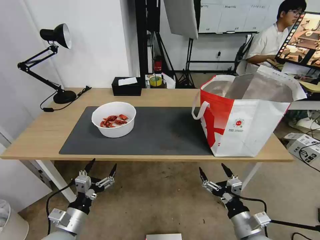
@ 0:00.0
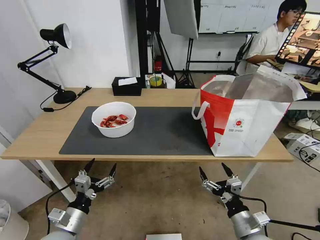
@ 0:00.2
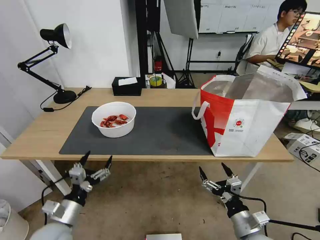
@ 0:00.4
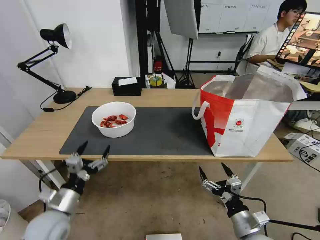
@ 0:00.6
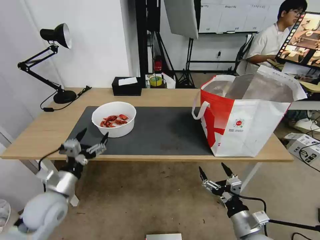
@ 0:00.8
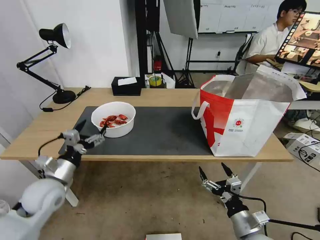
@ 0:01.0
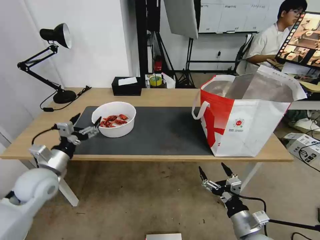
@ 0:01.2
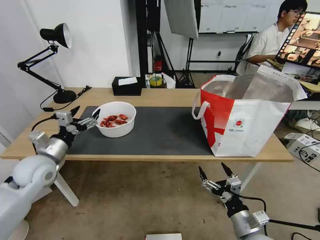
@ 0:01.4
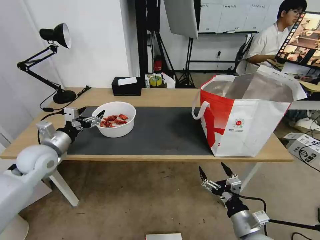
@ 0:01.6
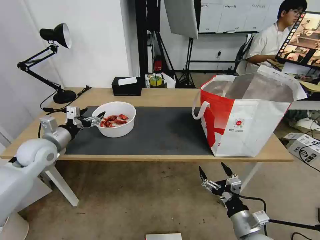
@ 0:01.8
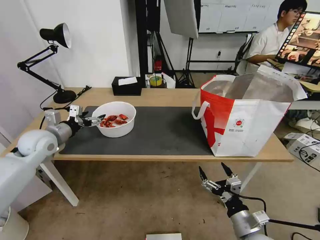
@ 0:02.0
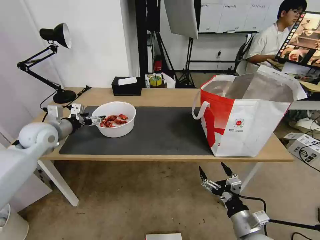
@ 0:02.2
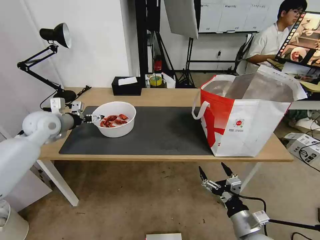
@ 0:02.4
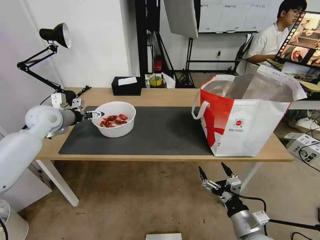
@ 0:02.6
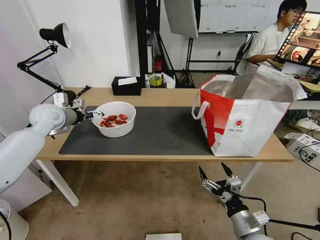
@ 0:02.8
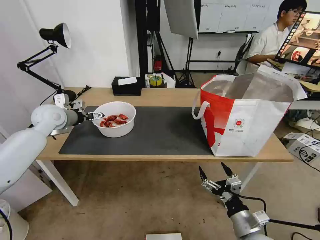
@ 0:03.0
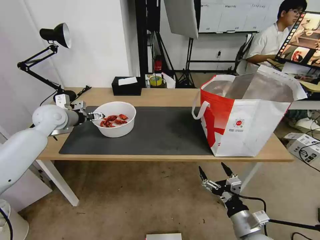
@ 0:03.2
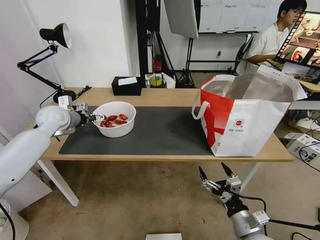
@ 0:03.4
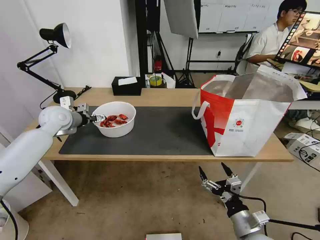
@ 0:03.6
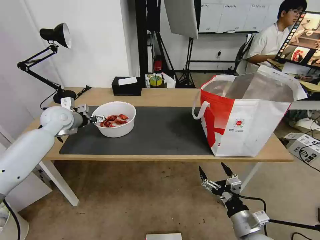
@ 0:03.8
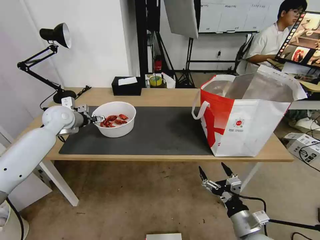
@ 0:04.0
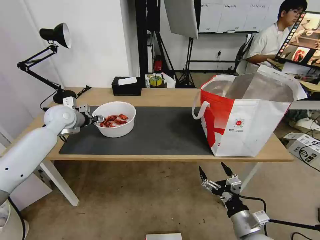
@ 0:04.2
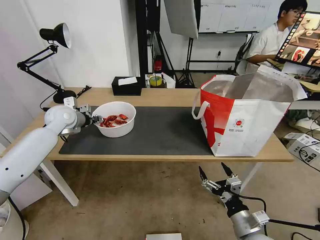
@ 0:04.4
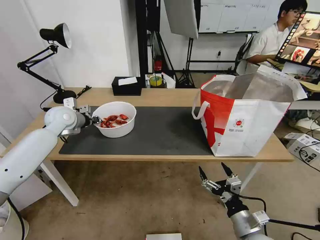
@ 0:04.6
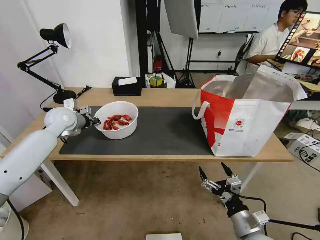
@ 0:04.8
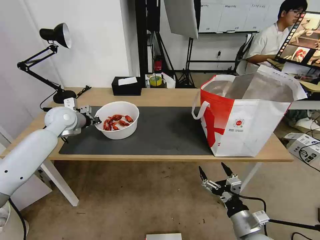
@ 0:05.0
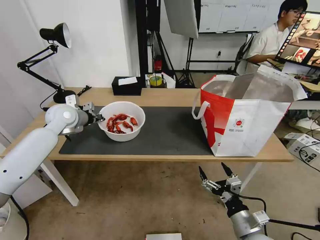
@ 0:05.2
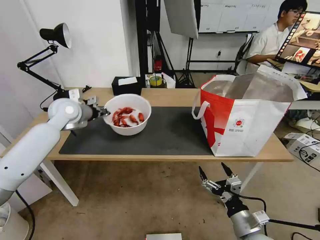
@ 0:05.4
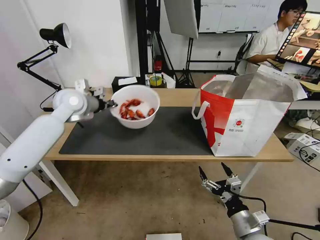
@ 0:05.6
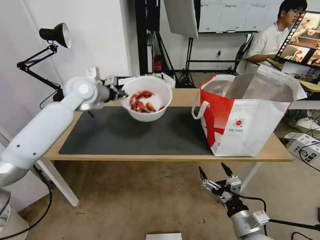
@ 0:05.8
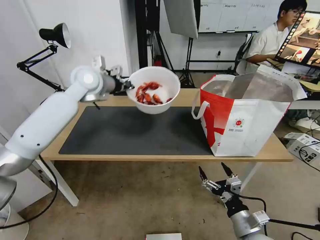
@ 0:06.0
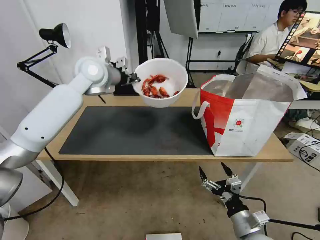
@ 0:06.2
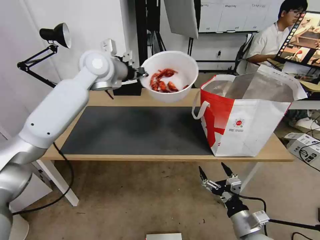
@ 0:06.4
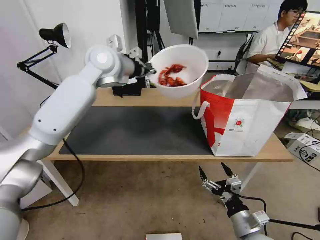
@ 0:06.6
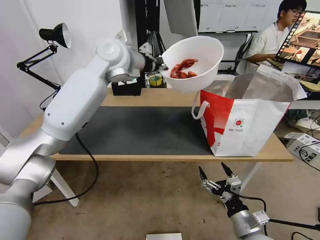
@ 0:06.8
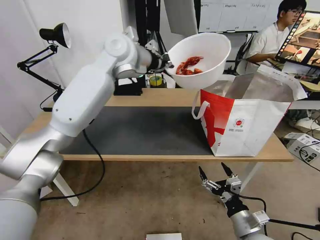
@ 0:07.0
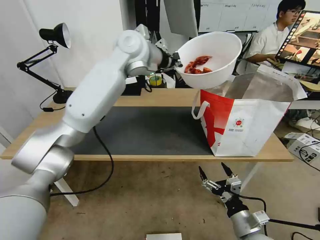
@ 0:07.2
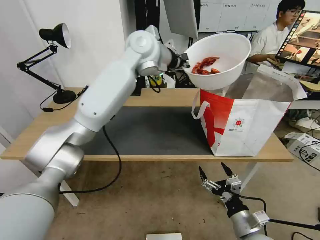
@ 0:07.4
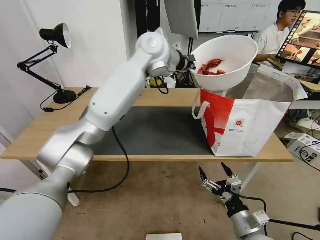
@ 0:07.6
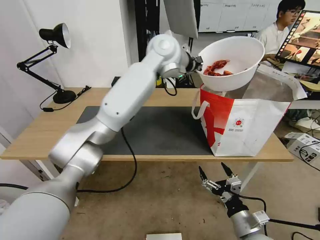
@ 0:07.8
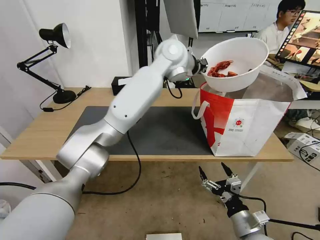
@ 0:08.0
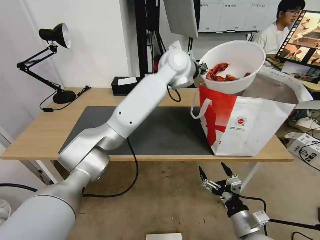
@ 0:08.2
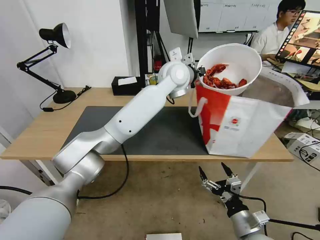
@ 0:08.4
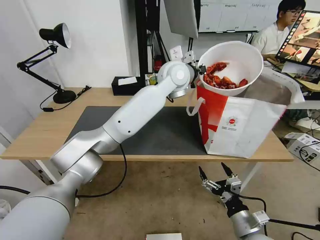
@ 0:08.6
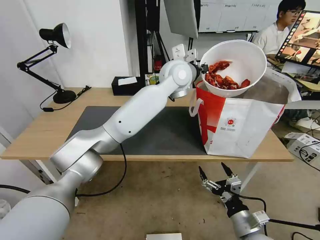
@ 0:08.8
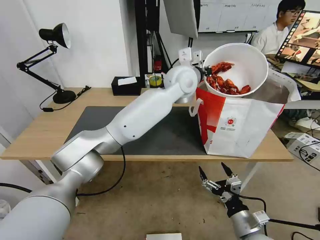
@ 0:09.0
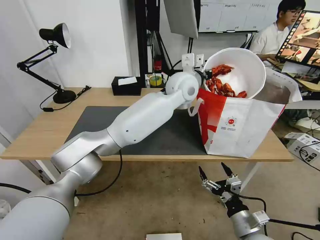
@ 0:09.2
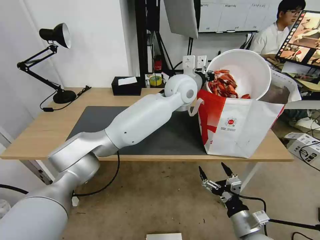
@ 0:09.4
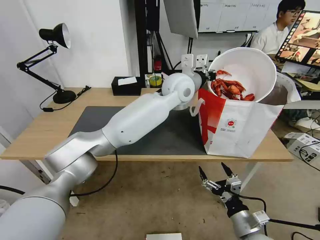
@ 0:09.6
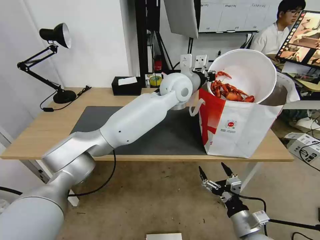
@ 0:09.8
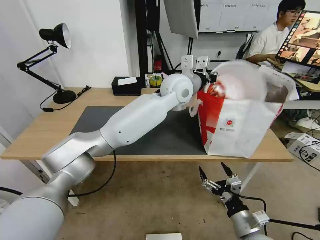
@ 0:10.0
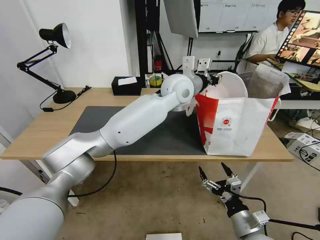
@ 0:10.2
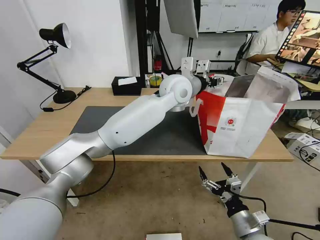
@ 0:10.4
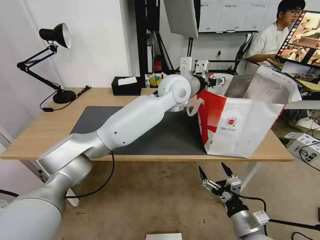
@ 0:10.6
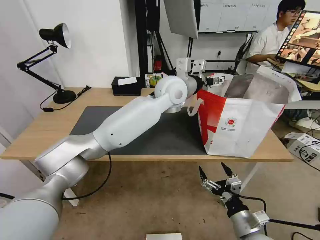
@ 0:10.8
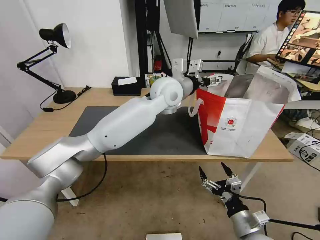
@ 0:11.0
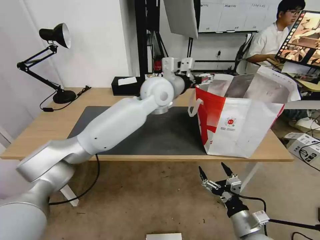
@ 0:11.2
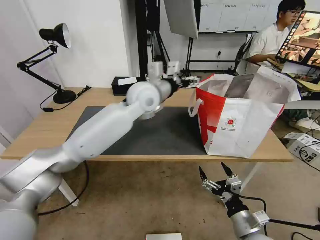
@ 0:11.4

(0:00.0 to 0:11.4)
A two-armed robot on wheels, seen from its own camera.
Task of the whole recording: Pick up the trash from the table and place it into the takeout bag.
0:00.0 - 0:01.4: The left gripper shifts approximately 25 cm forward, upward and to the left.
0:01.4 - 0:02.8: The left gripper is displaced forward and upward by roughly 15 cm.
0:02.8 - 0:04.2: The left gripper changes place by approximately 5 cm.
0:04.2 - 0:05.6: The left gripper travels upward and to the right by some 10 cm, and closes its fingers.
0:05.6 - 0:07.2: The left gripper heads to the right and upward, covering about 25 cm.
0:07.2 - 0:08.6: The left gripper moves to the right and downward, approximately 15 cm.
0:08.6 - 0:10.0: The grippers move only a little.
0:10.0 - 0:11.4: The left gripper shifts some 10 cm to the left, and opens its fingers.

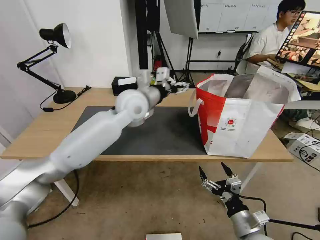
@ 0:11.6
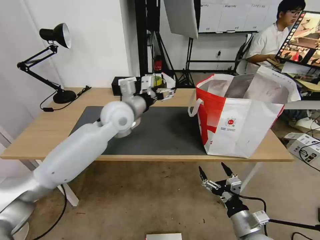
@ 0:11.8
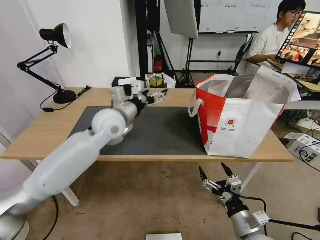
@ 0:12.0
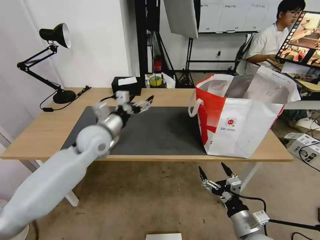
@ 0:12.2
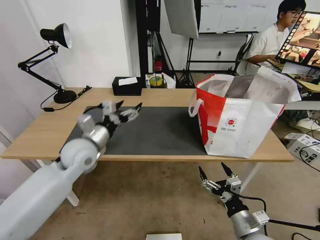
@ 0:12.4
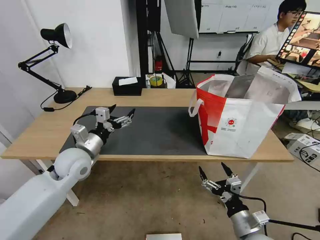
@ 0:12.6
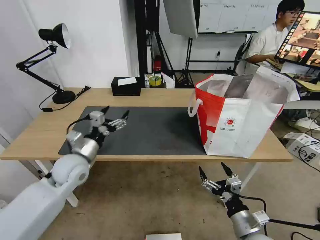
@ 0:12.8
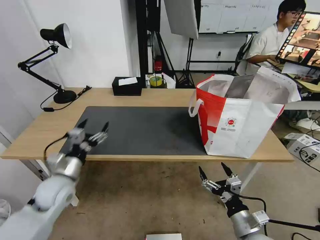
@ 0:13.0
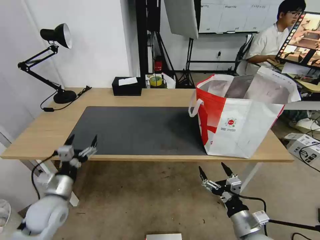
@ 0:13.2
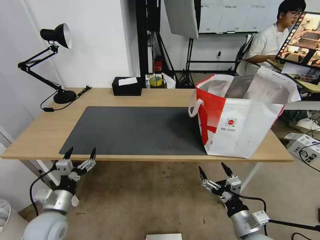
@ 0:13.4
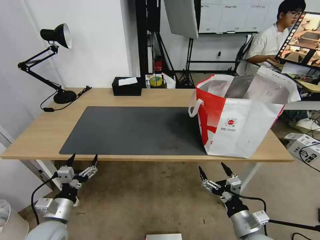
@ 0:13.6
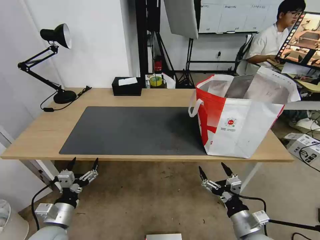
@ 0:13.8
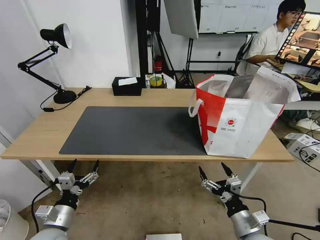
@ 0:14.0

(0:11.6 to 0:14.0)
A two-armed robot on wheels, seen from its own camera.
Task of the whole recording: Pick up the trash from the table and place it into the takeout bag.
0:11.6 - 0:12.8: The left gripper moves to the left, downward and backward, roughly 25 cm.
0:12.8 - 0:14.0: The left gripper moves backward and downward, approximately 20 cm.
